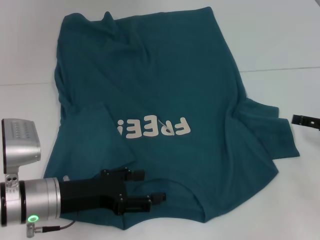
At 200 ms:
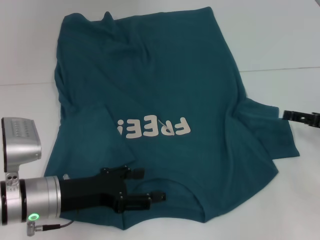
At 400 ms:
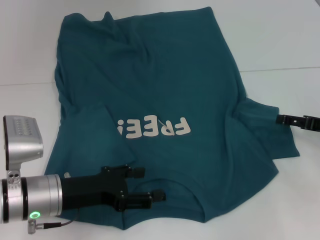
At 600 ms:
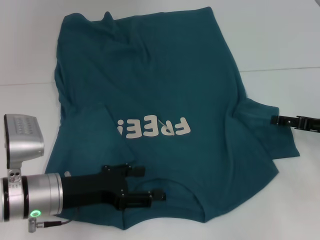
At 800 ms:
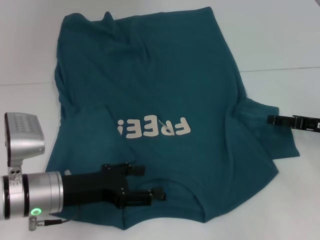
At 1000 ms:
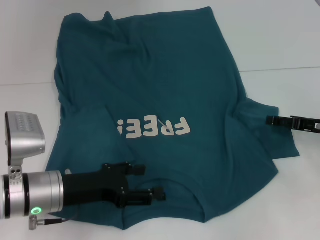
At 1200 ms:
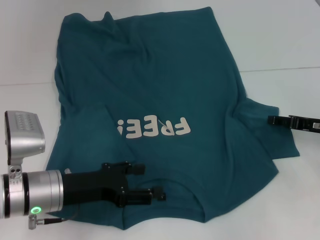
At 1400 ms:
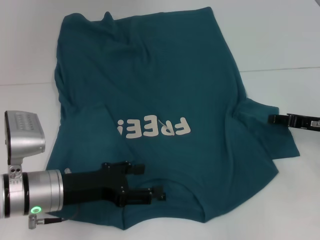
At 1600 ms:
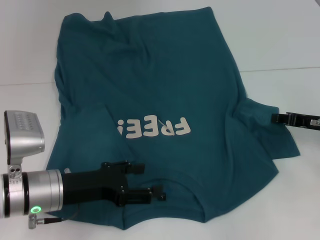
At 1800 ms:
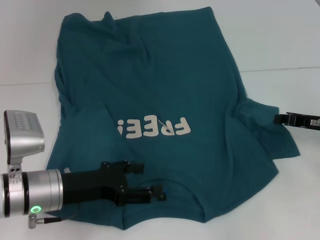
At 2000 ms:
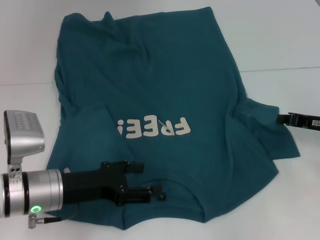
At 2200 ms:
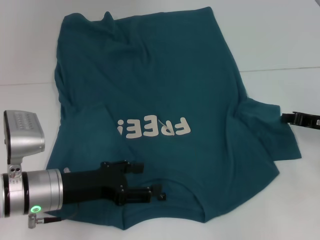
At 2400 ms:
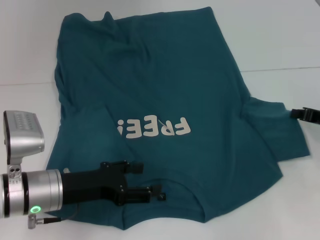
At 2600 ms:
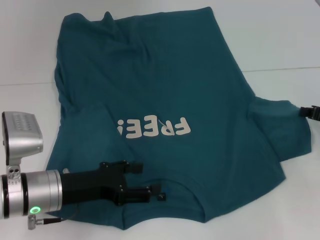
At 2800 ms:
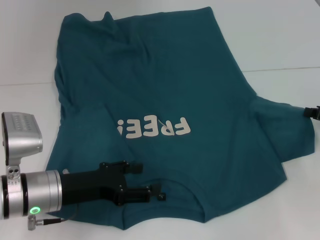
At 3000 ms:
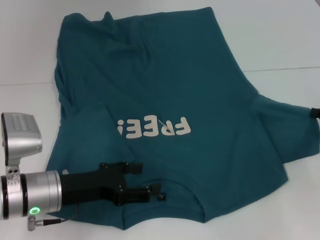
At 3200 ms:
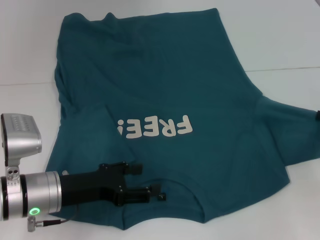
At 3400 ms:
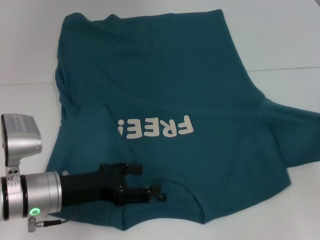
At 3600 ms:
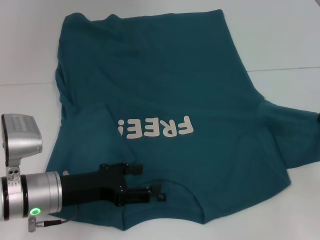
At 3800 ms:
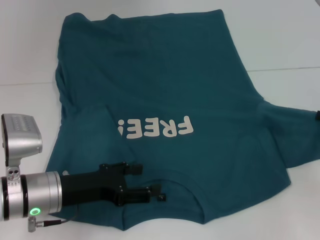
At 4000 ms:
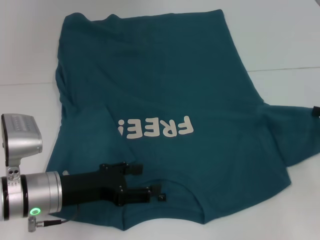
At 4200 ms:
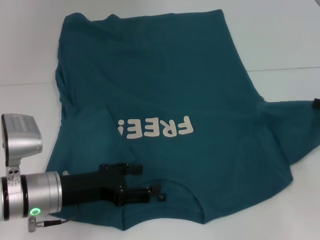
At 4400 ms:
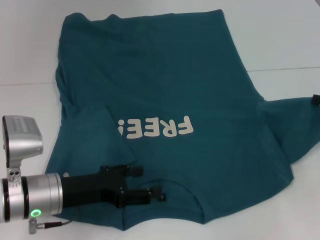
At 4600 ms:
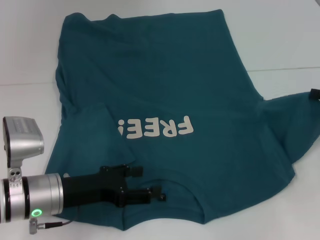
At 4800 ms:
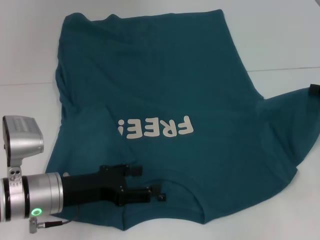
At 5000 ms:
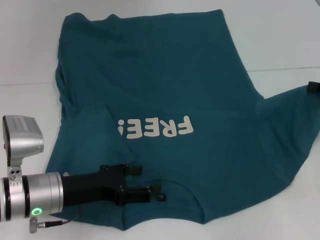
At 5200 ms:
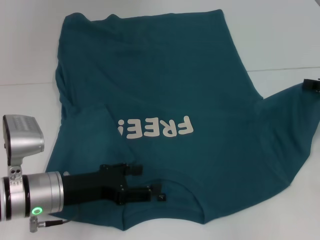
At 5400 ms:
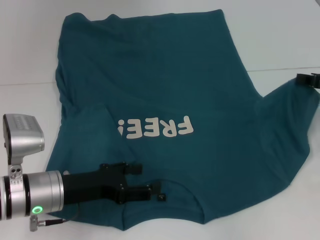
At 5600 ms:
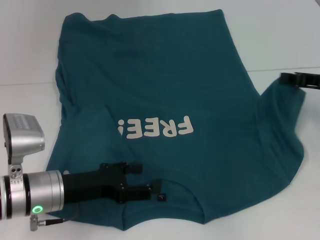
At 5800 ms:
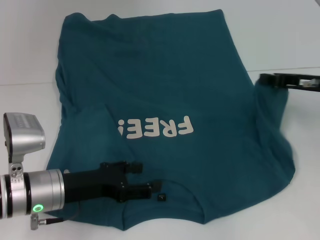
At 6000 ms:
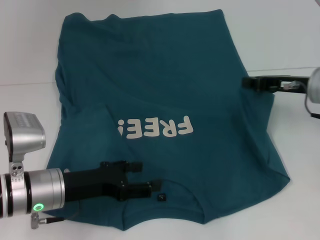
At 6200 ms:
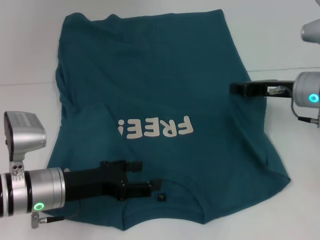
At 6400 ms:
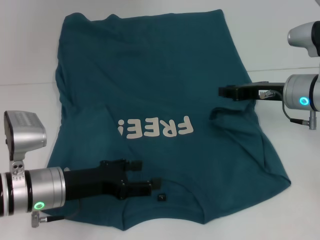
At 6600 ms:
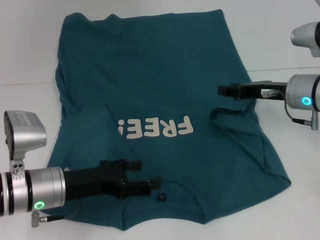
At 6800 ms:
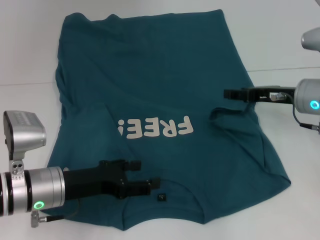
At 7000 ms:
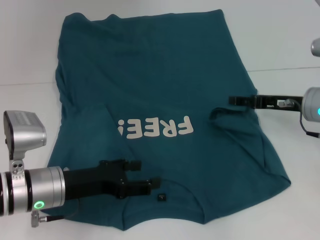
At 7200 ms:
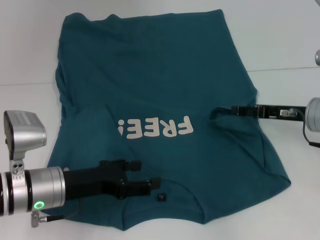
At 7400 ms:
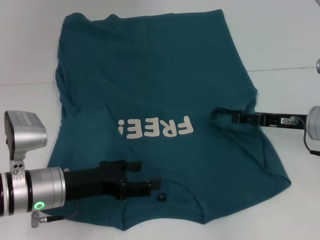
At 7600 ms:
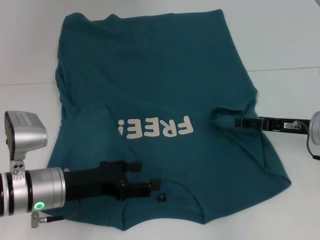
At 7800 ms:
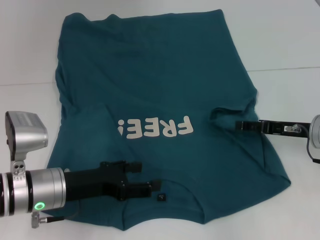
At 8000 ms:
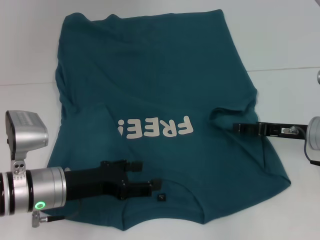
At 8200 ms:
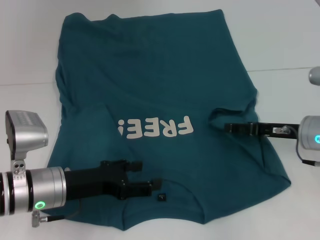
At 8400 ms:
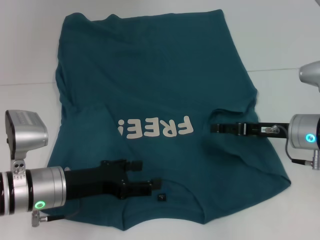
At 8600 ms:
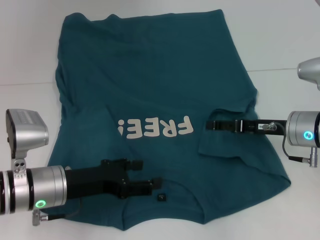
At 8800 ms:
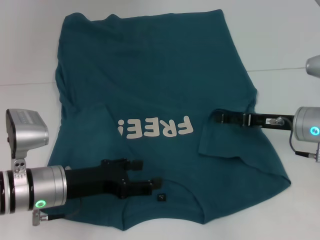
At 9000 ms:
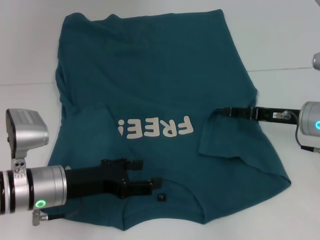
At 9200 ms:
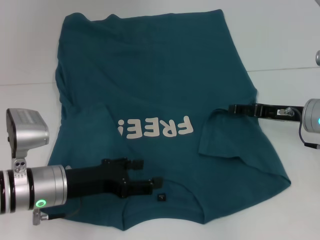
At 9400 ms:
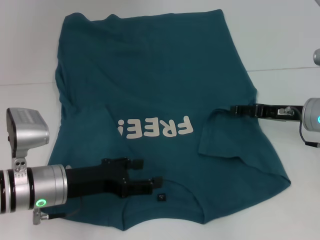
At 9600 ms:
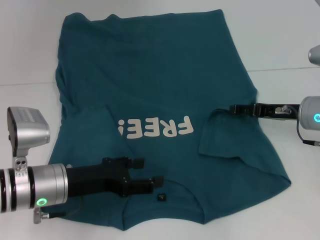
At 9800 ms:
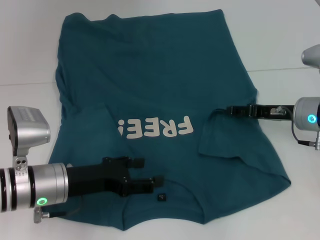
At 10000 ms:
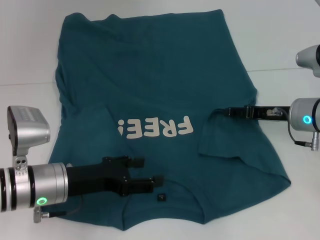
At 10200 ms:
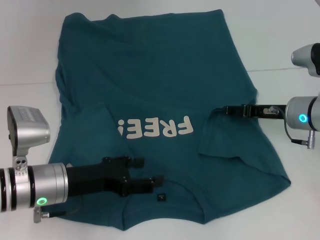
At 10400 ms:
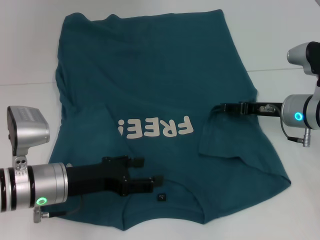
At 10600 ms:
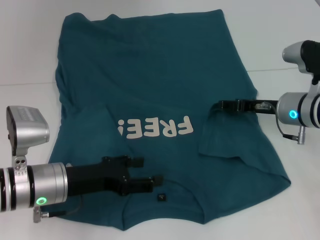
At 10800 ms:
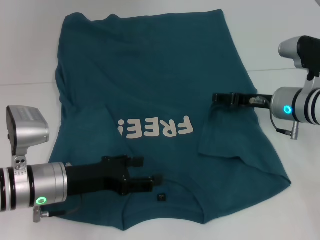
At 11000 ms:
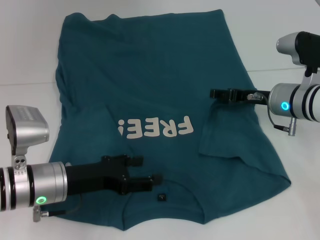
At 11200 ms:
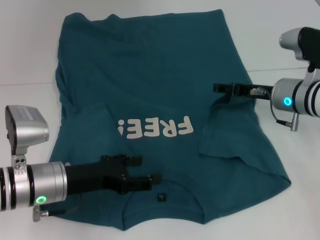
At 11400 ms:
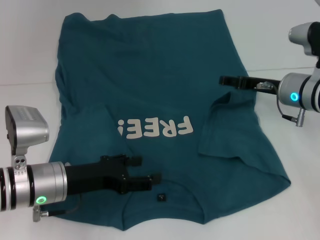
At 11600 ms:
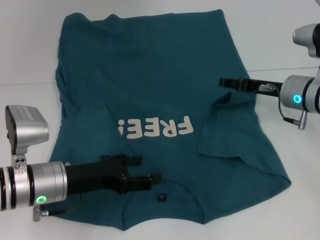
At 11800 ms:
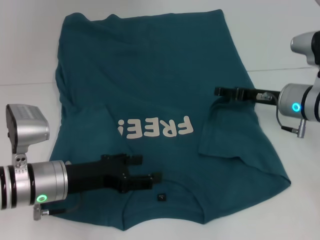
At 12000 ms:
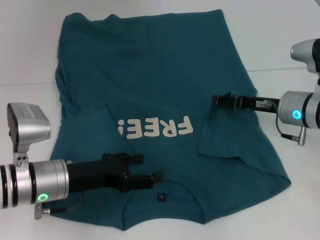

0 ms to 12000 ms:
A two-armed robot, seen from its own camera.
0 ms to 1600 ms: The right gripper shifts by some 5 cm, and closes.
1600 ms to 3000 ms: The right gripper moves about 5 cm, and closes up.
3000 ms to 4400 ms: There are only small adjustments of the grippers.
4400 ms to 6000 ms: The right gripper moves to the left and forward, some 10 cm.
6000 ms to 7600 ms: The right gripper is displaced downward by approximately 5 cm, and opens up.
7600 ms to 10400 ms: The grippers stay close to where they were, moving slightly.
10400 ms to 12000 ms: The grippers move only a little.

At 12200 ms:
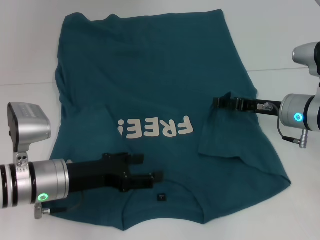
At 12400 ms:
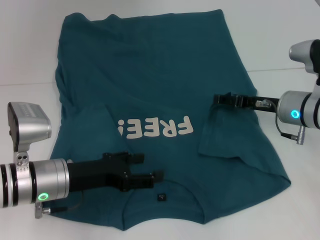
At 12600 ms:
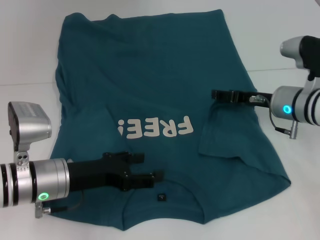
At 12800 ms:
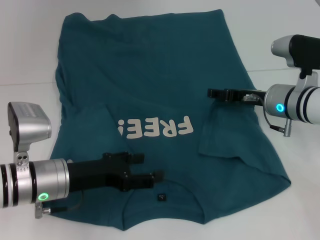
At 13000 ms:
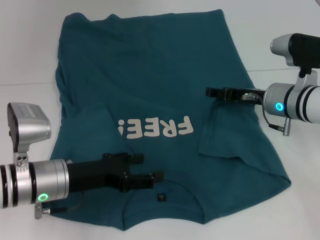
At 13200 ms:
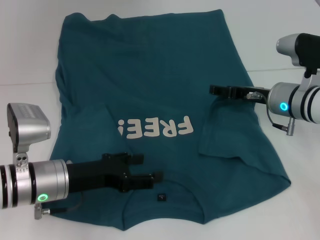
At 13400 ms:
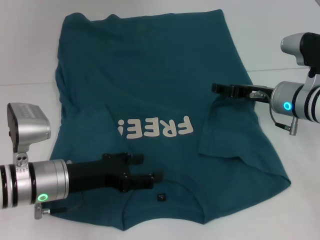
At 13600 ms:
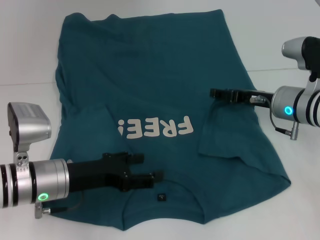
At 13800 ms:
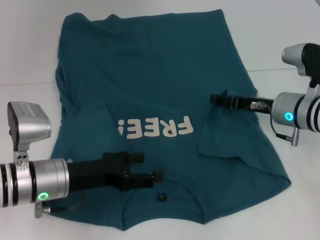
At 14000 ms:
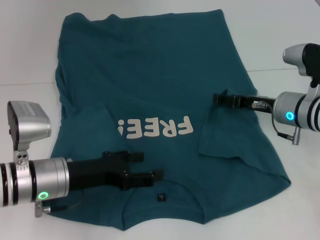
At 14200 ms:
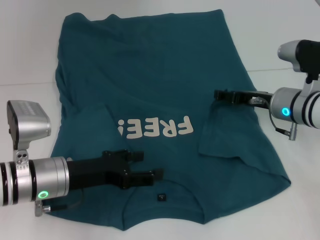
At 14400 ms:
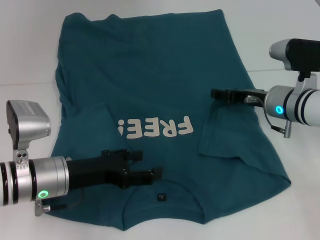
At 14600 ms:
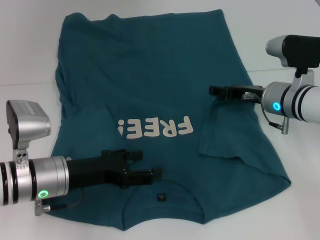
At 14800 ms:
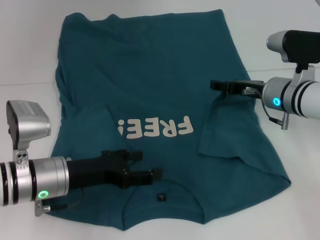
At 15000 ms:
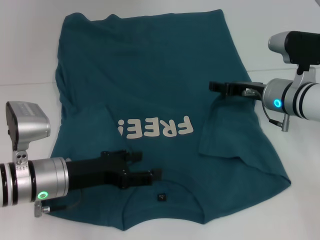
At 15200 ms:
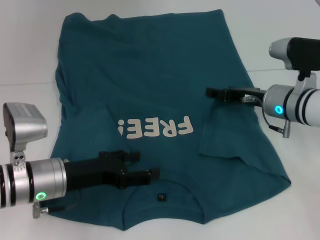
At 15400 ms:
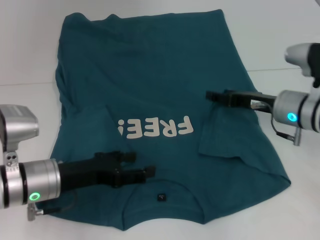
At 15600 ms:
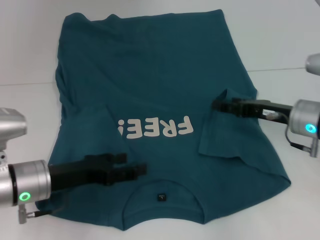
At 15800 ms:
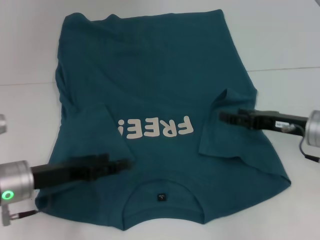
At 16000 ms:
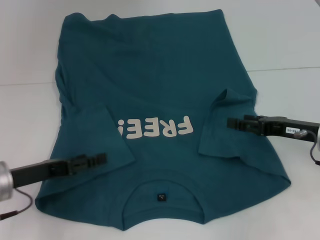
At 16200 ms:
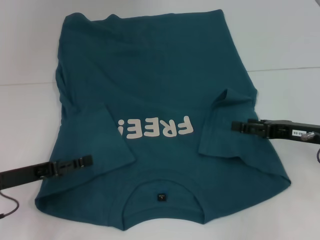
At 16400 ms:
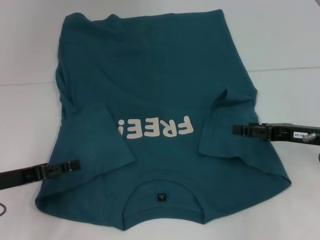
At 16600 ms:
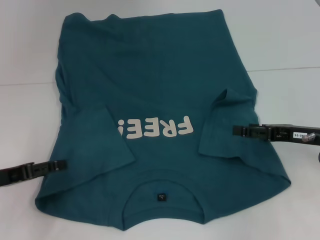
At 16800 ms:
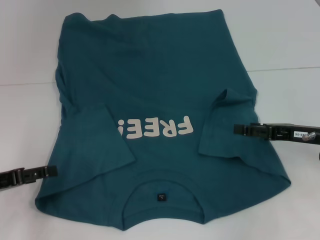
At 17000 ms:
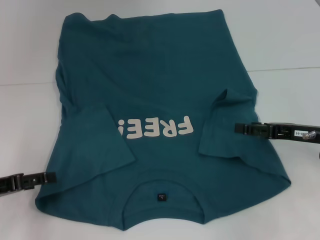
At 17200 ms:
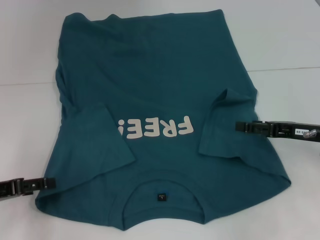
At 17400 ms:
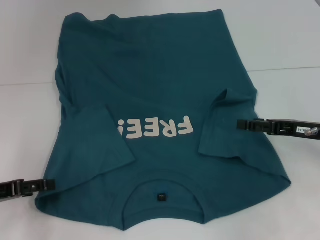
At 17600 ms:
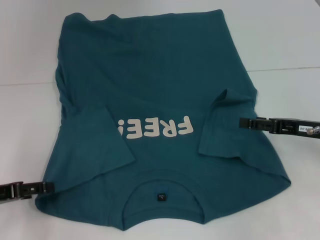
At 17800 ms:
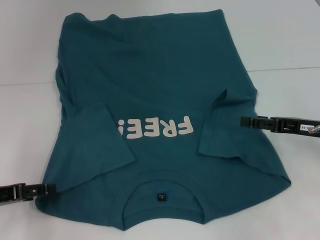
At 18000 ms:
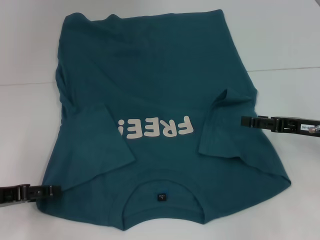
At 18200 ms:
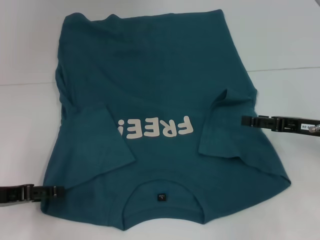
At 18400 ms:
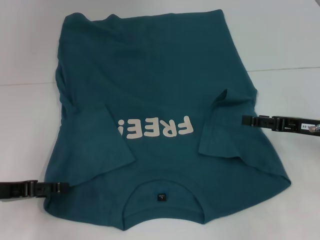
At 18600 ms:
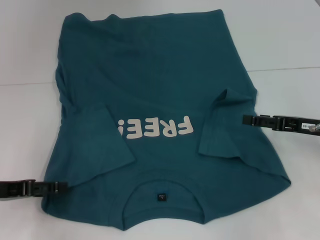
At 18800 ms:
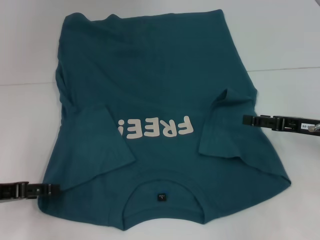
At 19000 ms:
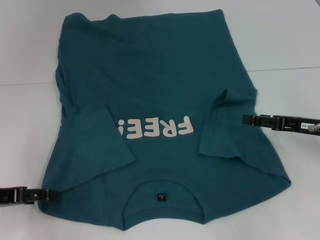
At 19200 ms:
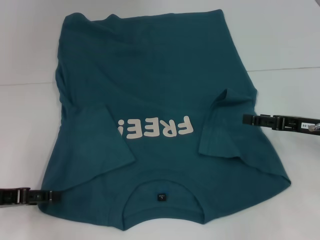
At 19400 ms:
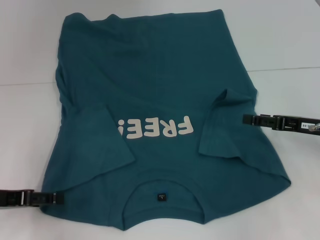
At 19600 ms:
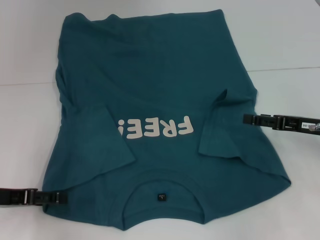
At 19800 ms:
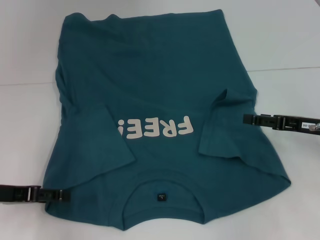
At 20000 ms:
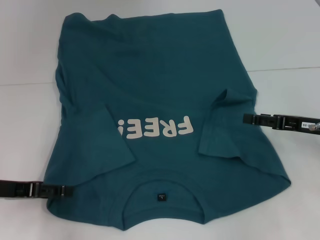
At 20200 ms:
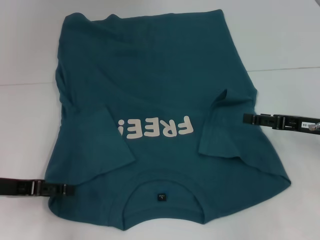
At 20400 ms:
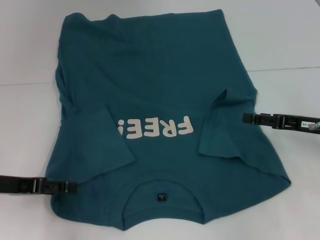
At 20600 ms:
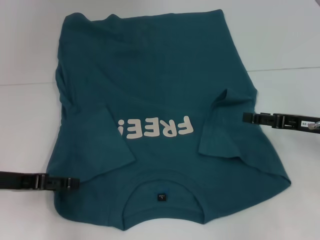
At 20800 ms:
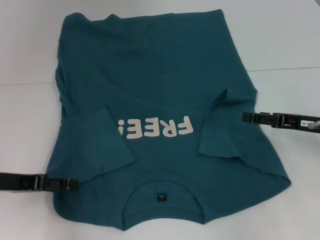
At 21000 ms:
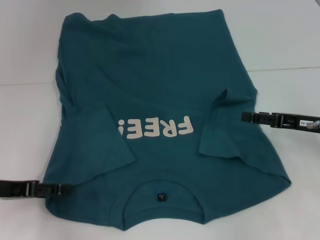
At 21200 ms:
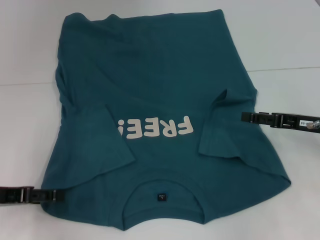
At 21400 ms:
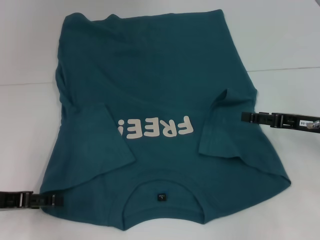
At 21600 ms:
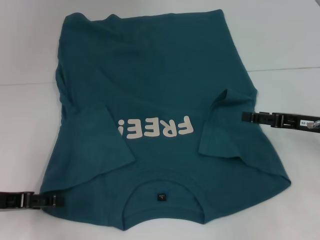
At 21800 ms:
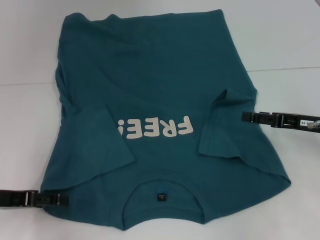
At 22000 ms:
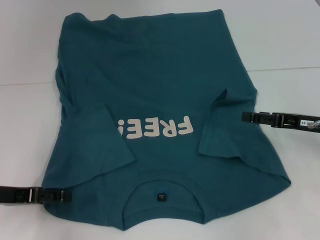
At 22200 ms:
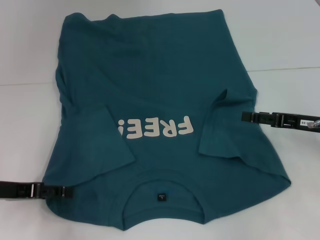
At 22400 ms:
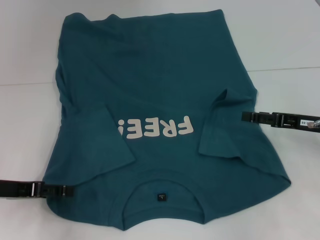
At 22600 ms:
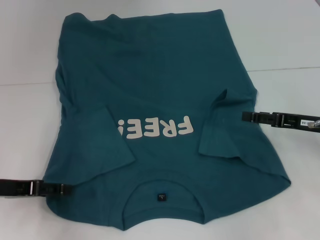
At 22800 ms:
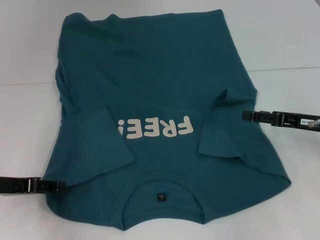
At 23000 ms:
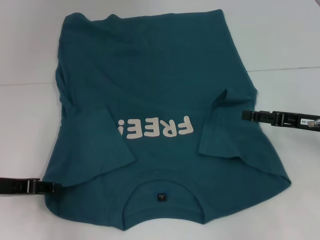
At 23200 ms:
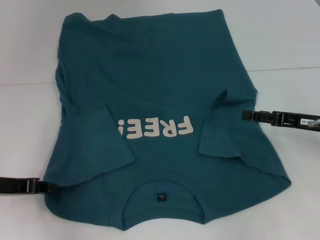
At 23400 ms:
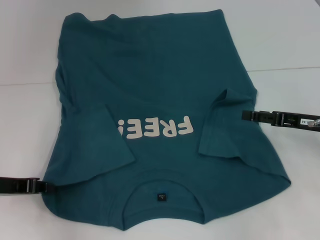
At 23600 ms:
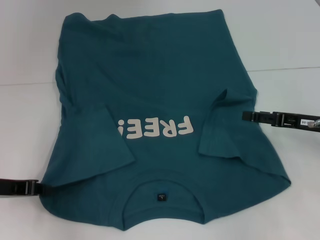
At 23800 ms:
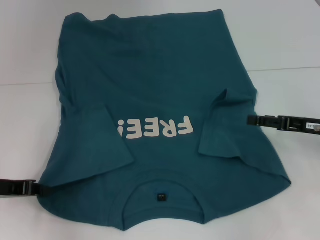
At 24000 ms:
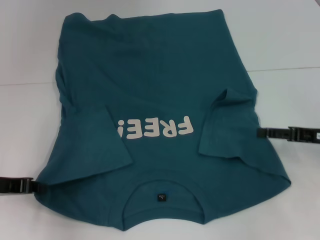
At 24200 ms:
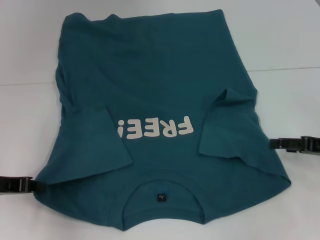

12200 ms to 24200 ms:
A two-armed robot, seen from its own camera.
Step, 12200 ms to 14600 ms: Fold the bottom right sleeve to the right.
Step, 14800 ms to 23800 ms: Grab the bottom left corner with your left hand.
12200 ms to 15200 ms: The grippers make only small movements.
15200 ms to 16600 ms: The right gripper travels backward and to the right by roughly 10 cm. Meanwhile the left gripper shifts approximately 10 cm to the left.
16600 ms to 22600 ms: The grippers stay close to where they were, moving slightly.
22600 ms to 24200 ms: The left gripper closes its fingers.
